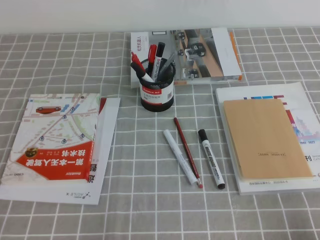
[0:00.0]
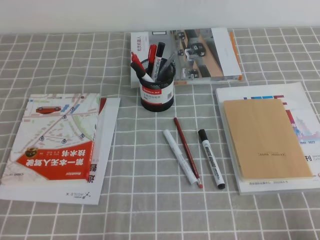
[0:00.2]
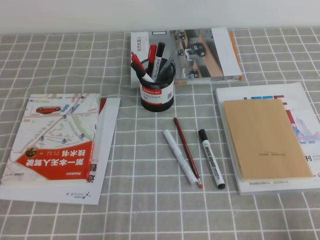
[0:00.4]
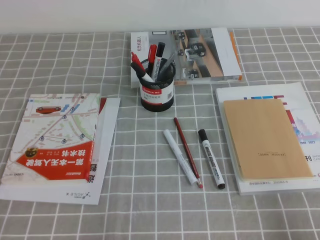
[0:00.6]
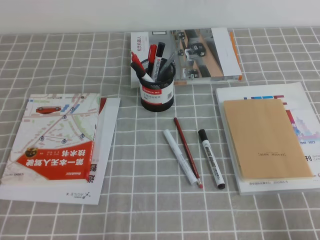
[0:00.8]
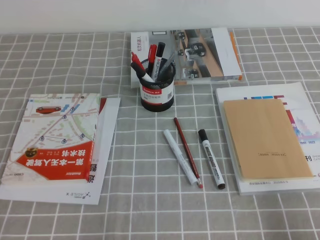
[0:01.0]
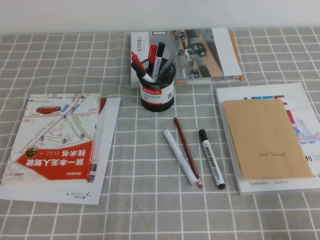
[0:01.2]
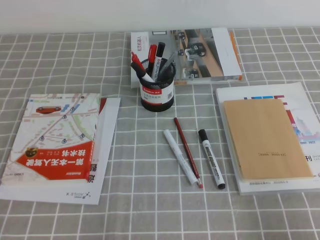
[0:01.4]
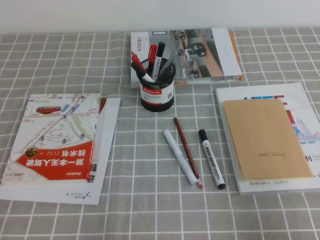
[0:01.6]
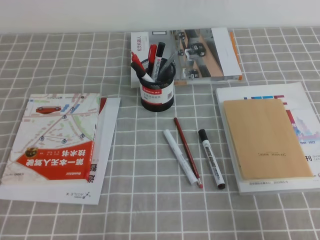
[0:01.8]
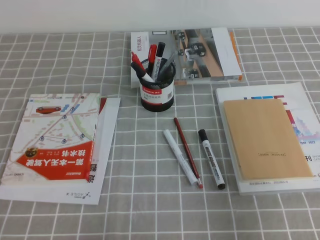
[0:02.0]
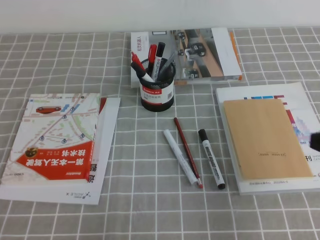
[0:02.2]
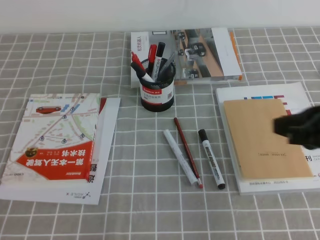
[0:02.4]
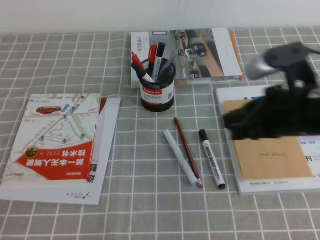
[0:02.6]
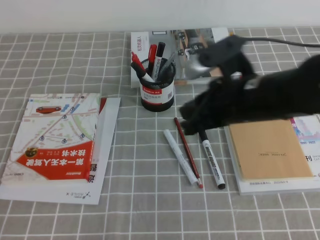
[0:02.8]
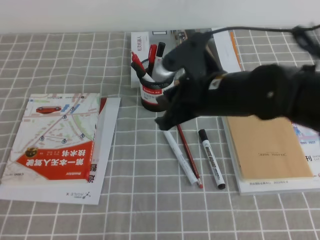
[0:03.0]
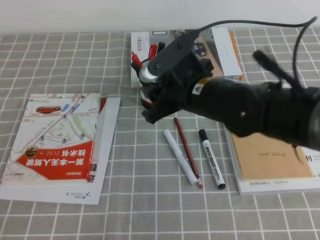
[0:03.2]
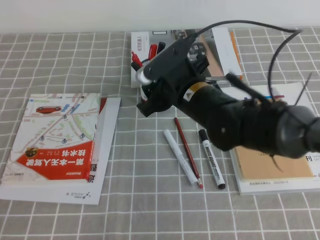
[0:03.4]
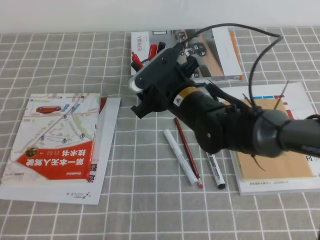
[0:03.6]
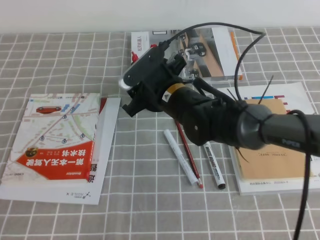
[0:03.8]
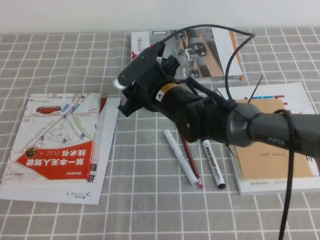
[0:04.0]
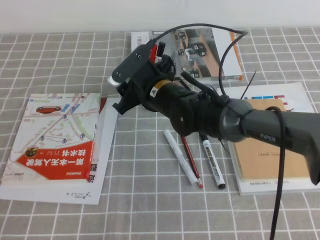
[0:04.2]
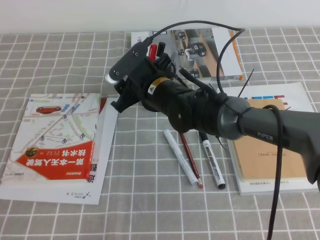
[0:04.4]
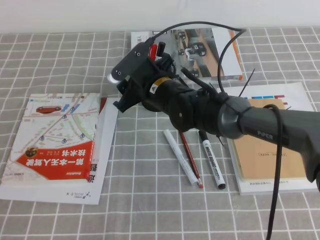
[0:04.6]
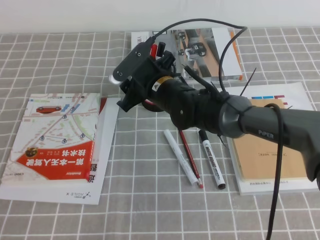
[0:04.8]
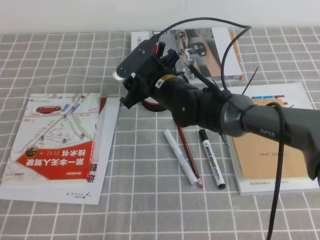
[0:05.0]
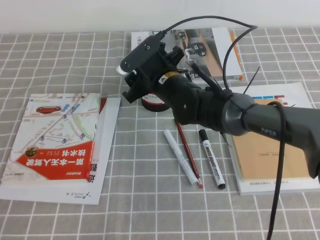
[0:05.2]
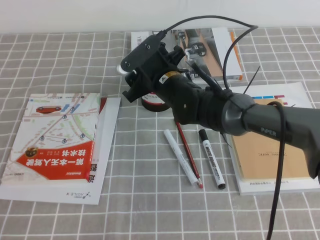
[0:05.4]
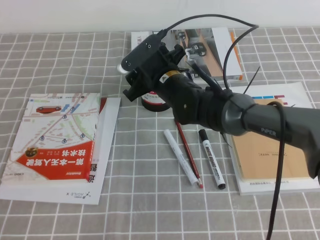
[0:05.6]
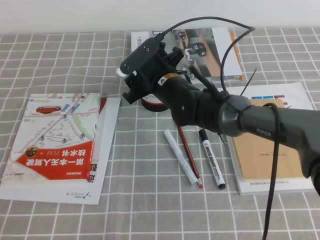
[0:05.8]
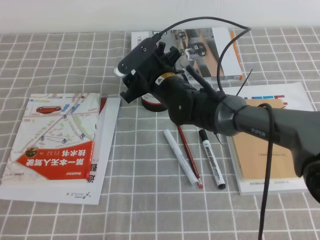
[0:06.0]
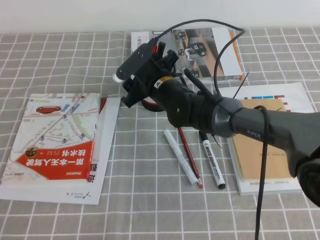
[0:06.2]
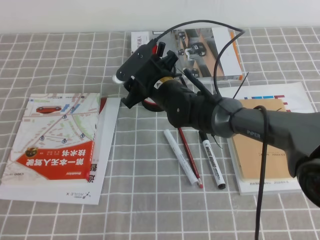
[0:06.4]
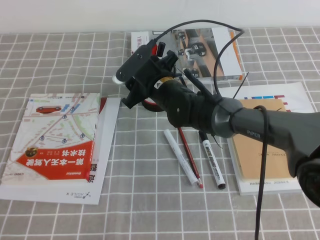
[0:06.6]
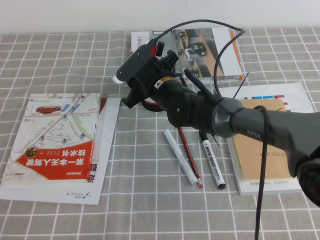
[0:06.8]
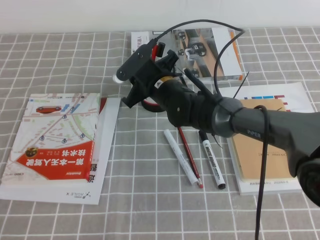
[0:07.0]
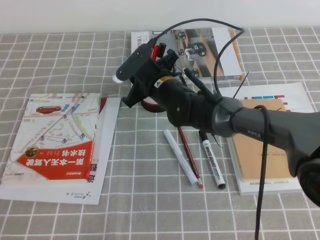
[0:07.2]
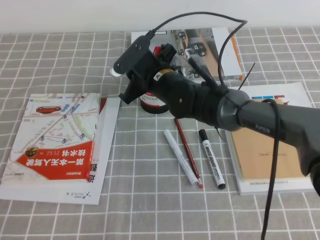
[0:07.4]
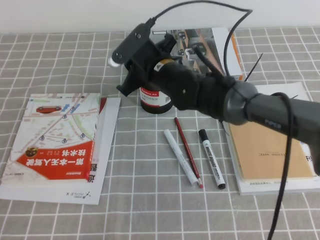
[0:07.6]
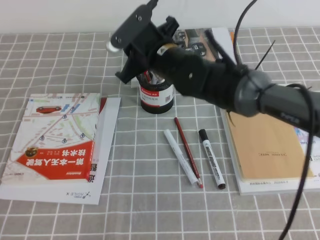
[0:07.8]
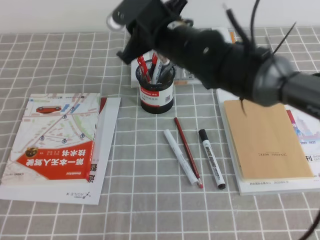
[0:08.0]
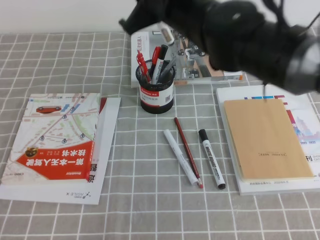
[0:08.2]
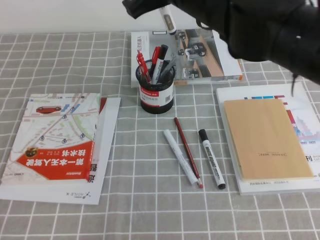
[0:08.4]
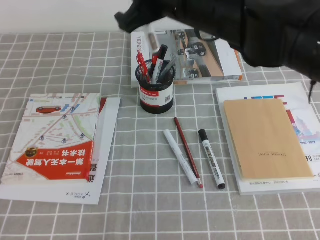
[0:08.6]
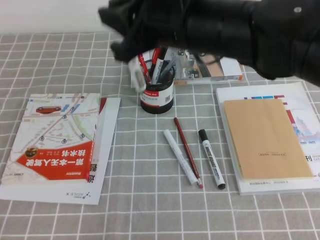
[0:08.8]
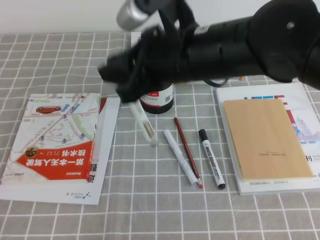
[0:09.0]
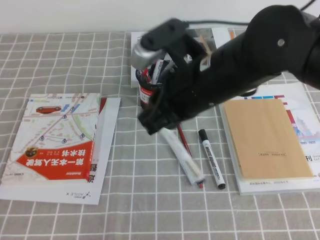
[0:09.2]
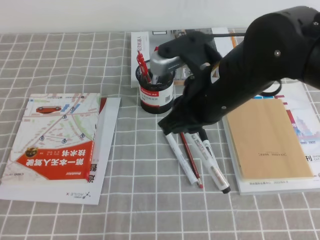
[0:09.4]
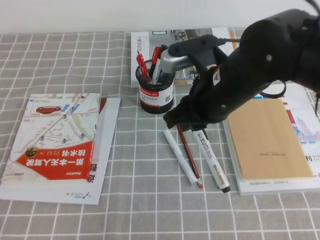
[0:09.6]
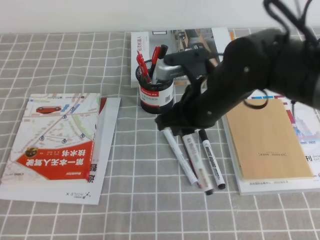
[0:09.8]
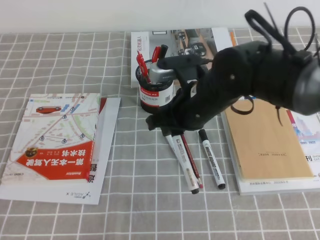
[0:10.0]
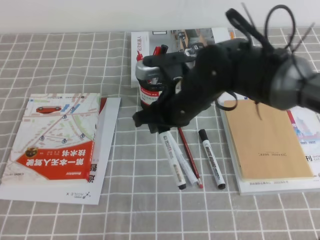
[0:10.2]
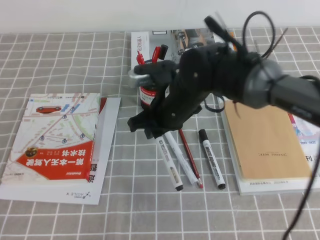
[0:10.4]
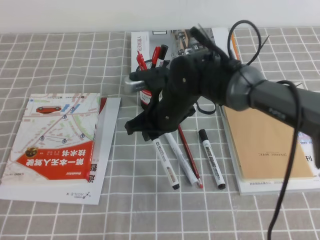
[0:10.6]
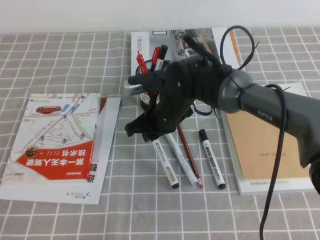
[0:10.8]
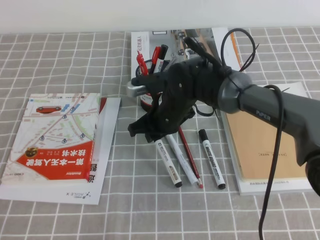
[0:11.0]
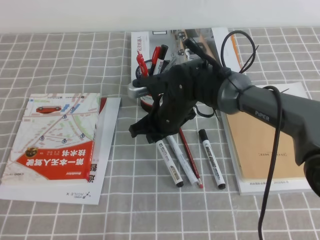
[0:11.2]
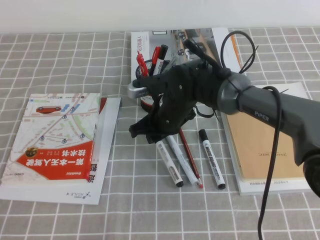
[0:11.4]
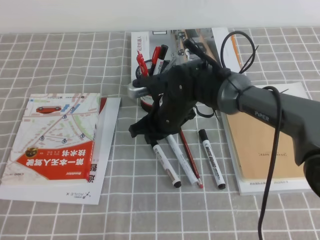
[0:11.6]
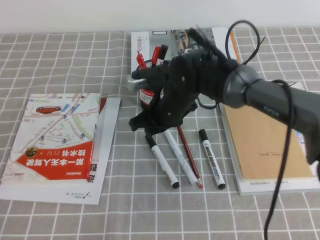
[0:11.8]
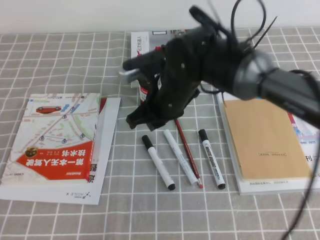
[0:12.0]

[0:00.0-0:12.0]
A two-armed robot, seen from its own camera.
0:00.0 to 0:01.6: The right gripper is displaced upward by about 5 cm.
0:01.6 to 0:03.0: The right gripper travels forward and to the left by approximately 30 cm.
0:03.0 to 0:04.4: The right gripper moves to the left, forward and downward, about 15 cm, and opens up.
0:04.4 to 0:06.0: There are only small adjustments of the grippers.
0:06.0 to 0:07.6: The right gripper closes up.
0:07.6 to 0:09.0: The right gripper travels backward, upward and to the right by about 20 cm.
0:09.0 to 0:10.4: The right gripper moves downward and forward, roughly 15 cm.

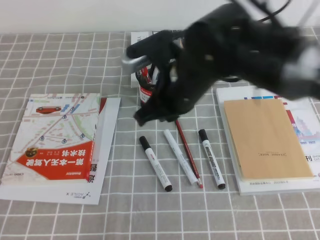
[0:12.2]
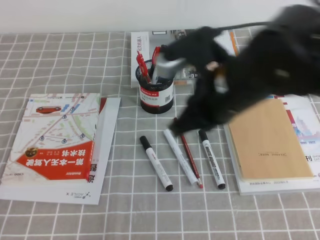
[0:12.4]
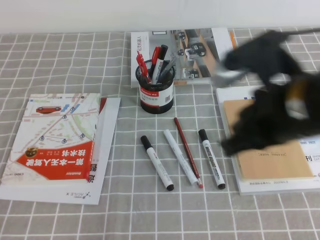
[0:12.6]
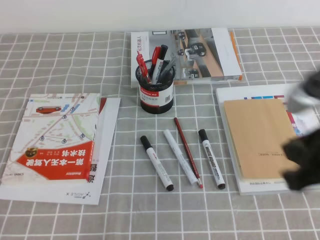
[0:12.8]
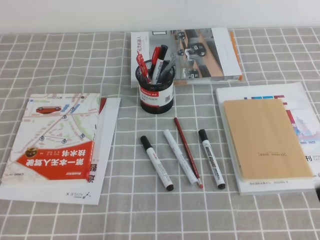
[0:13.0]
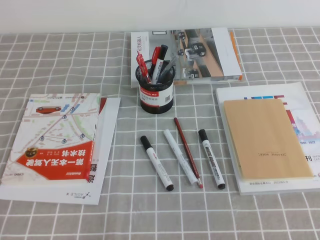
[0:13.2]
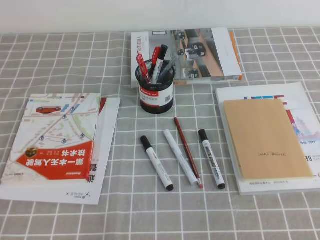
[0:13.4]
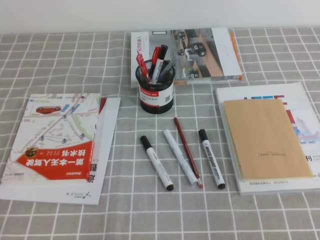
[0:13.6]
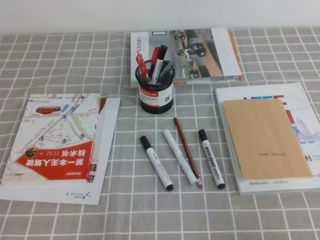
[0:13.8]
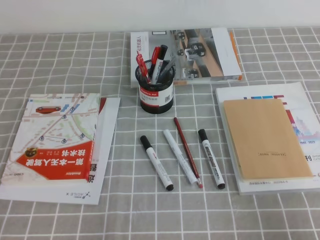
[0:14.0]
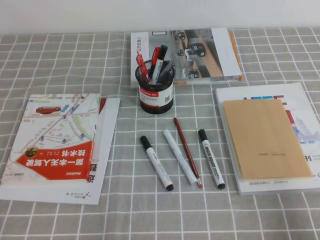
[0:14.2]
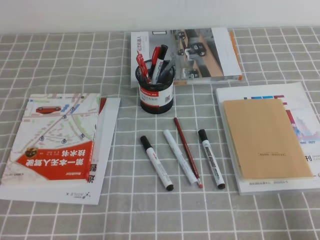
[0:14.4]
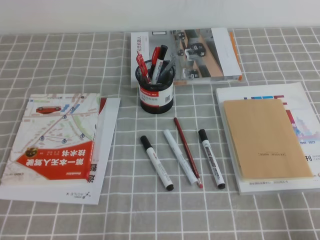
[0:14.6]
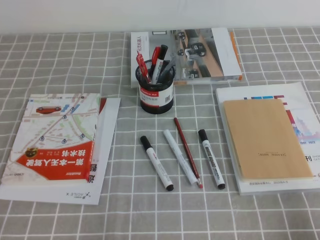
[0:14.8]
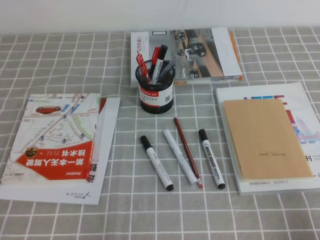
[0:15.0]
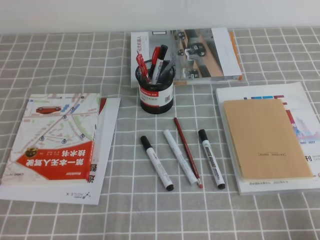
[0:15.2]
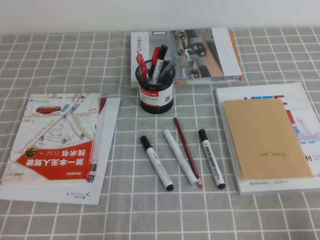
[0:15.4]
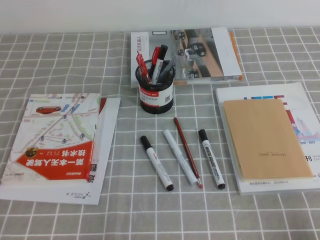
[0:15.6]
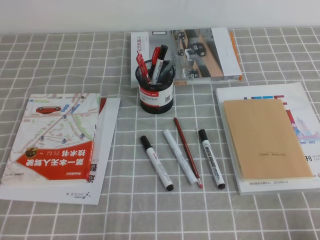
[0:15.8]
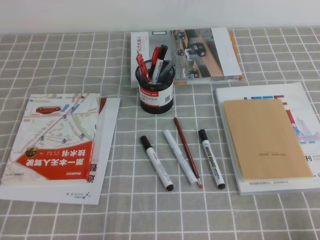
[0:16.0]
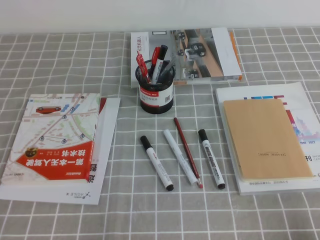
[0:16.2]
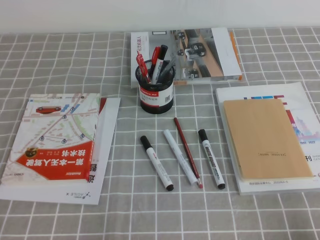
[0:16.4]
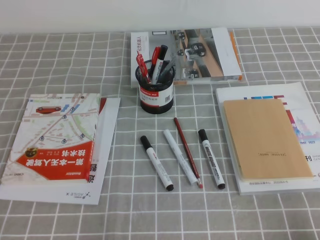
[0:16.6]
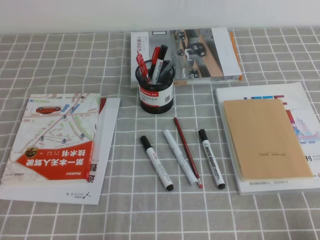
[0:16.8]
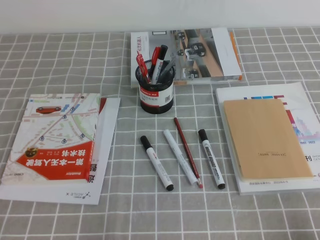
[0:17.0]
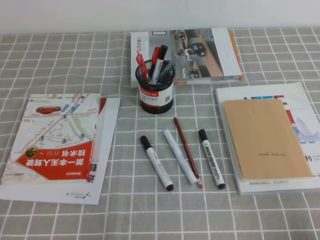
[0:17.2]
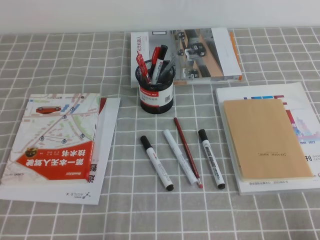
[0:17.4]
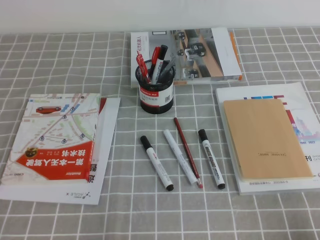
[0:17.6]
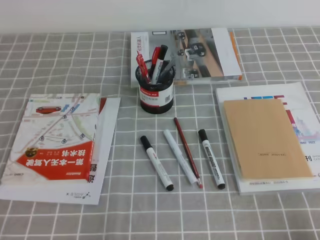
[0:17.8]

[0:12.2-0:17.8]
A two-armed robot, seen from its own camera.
Step, 0:12.2 to 0:17.8: Pick up the pen from the pen holder.
0:12.2 to 0:13.6: The right gripper shifts some 35 cm backward and to the right.
0:13.6 to 0:15.0: The right gripper is displaced downward by some 10 cm.
0:16.4 to 0:17.8: The two grippers keep their place.
